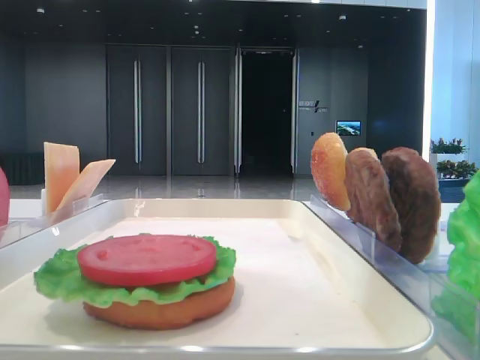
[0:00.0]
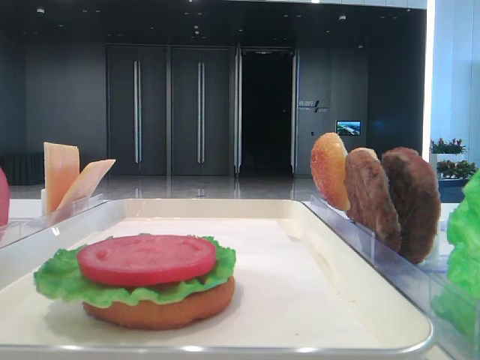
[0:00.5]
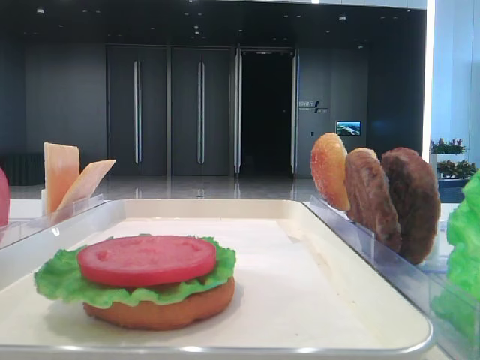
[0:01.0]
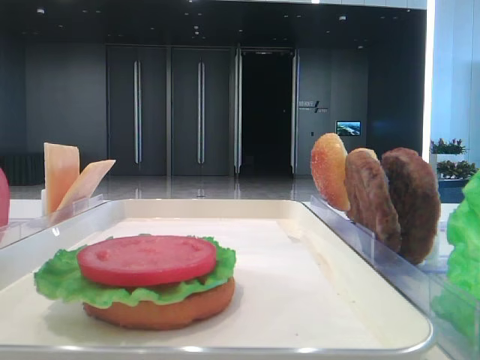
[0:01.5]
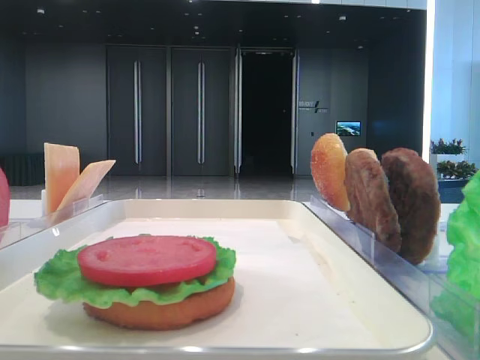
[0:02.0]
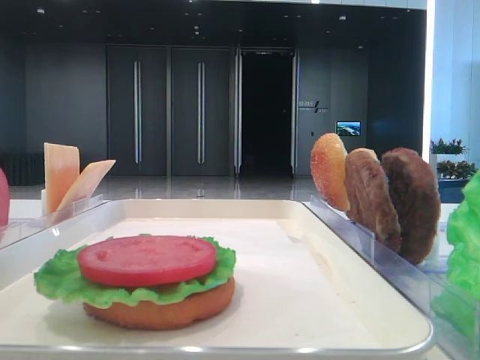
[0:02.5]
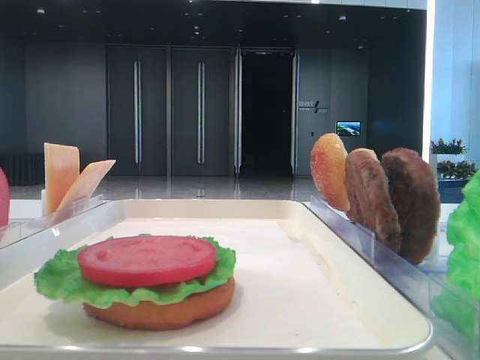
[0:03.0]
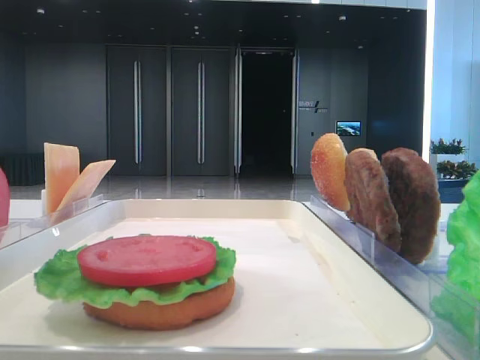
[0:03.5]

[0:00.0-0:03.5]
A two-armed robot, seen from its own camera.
0:02.0 to 0:03.5: Both grippers stay put.
